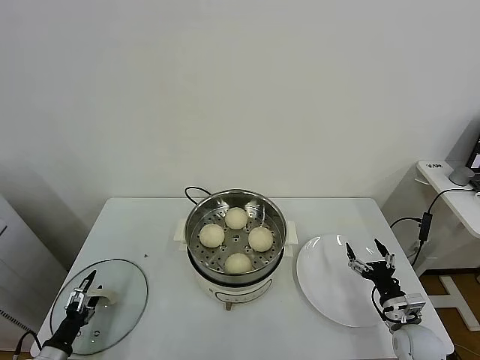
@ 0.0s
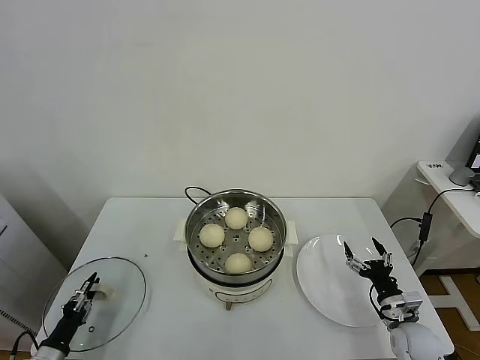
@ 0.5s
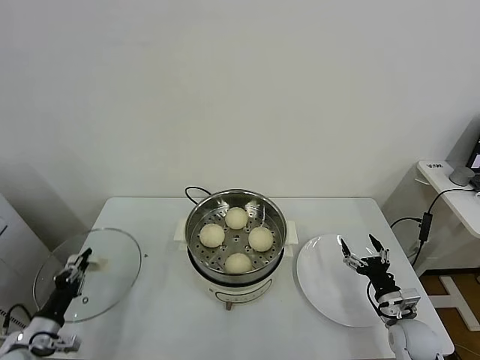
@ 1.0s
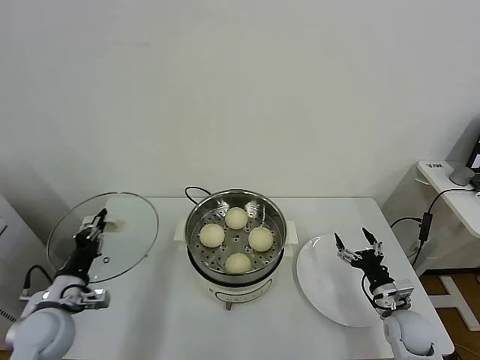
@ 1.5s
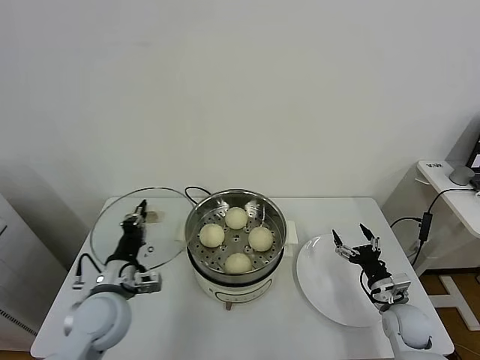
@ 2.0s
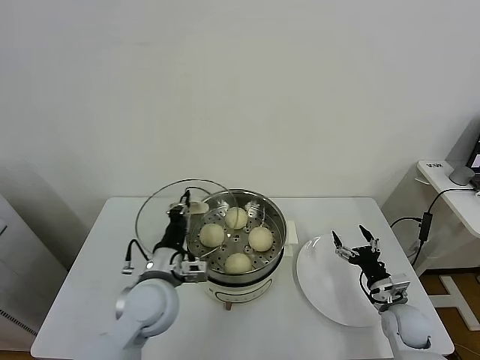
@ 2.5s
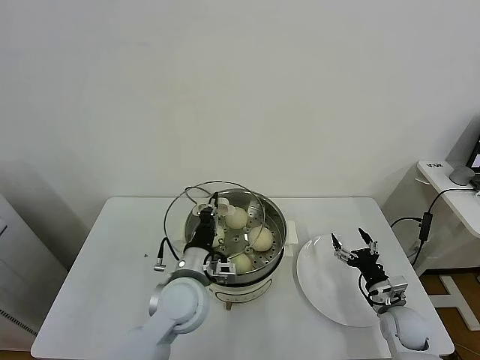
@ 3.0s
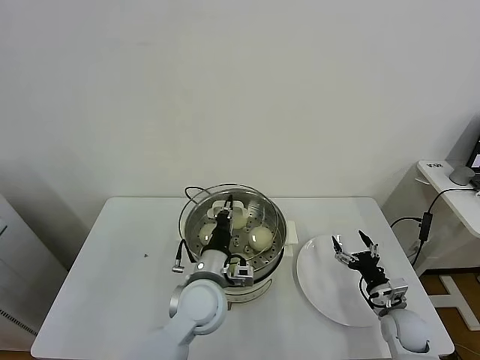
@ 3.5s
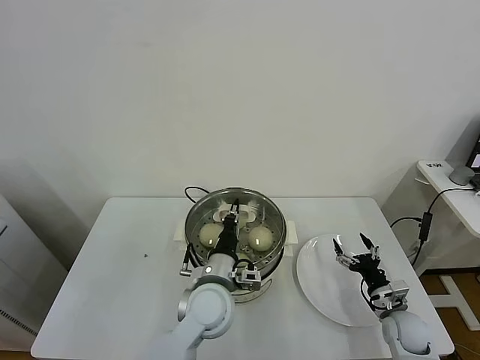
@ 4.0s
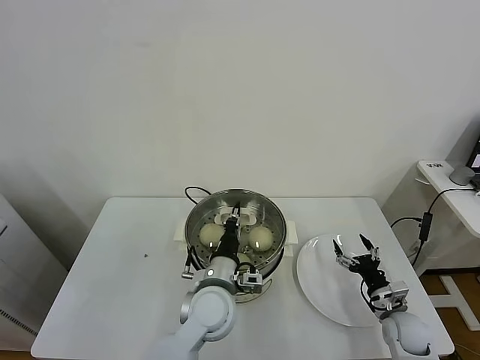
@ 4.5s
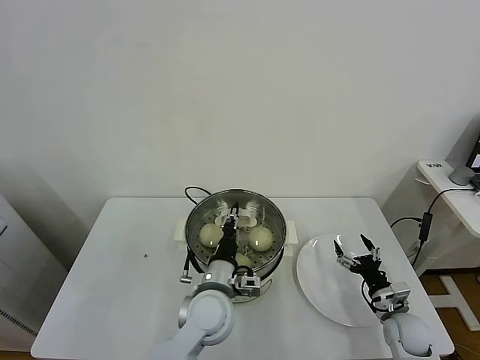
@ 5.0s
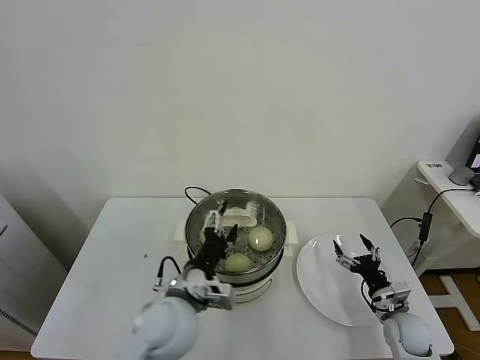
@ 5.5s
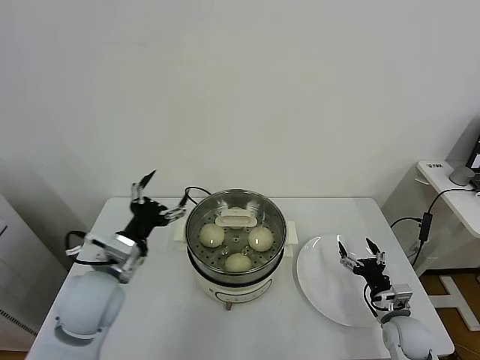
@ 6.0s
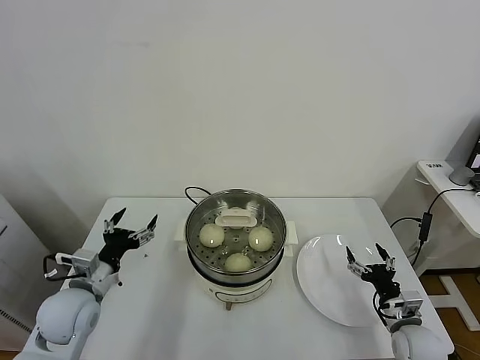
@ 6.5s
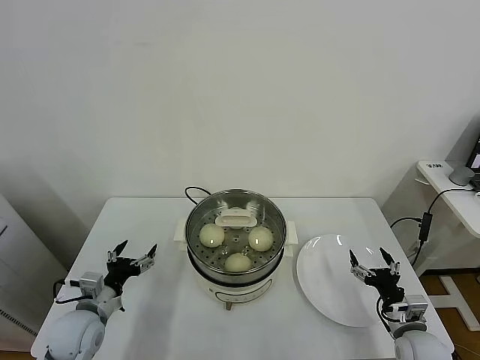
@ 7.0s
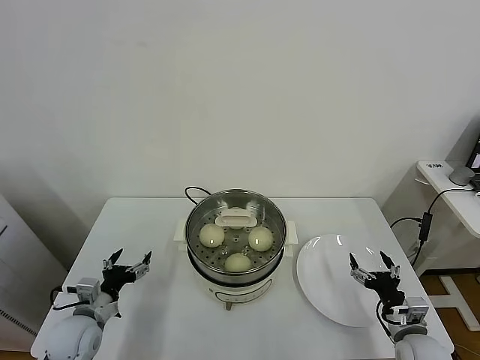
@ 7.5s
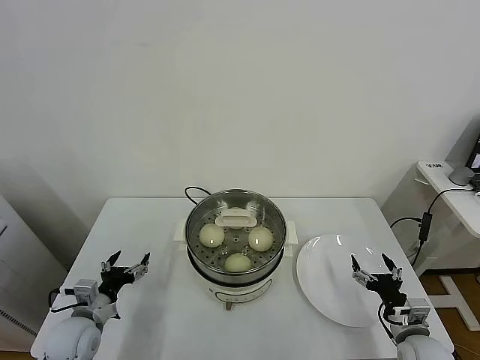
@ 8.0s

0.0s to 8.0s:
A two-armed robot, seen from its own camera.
Task of the whole recording: take steamed baozi put them in steamer.
Step, 1.5s to 5.0s: Place the pot lid on the steamer with left gripper.
0.0s to 2.0s: The left gripper moves upward, to the right and forward, about 30 cm, and closes up.
2.0s to 4.0s: The left gripper goes roughly 20 cm to the right.
4.0s to 6.0s: The left gripper travels to the left and upward by roughly 20 cm, and opens its fingers.
6.0s to 8.0s: The right gripper travels backward by about 5 cm. Meanwhile the left gripper goes roughly 20 cm downward and to the left.
